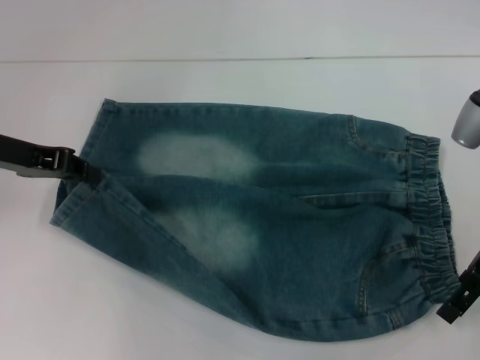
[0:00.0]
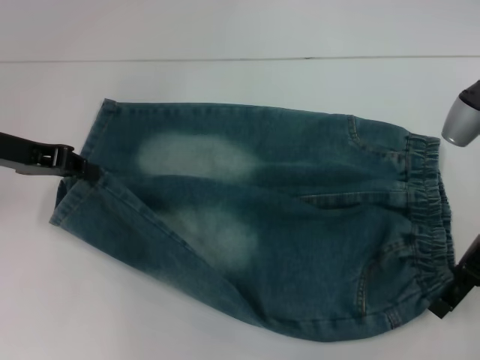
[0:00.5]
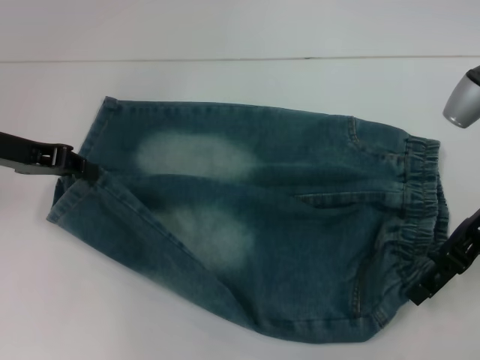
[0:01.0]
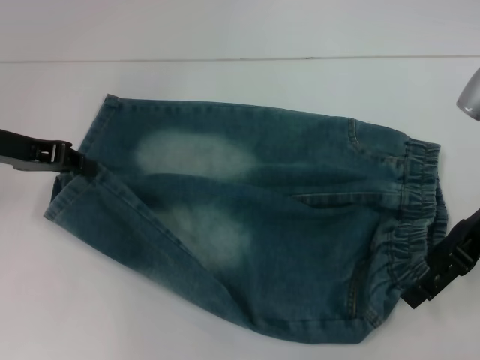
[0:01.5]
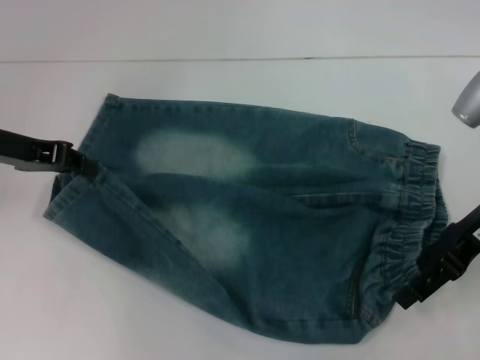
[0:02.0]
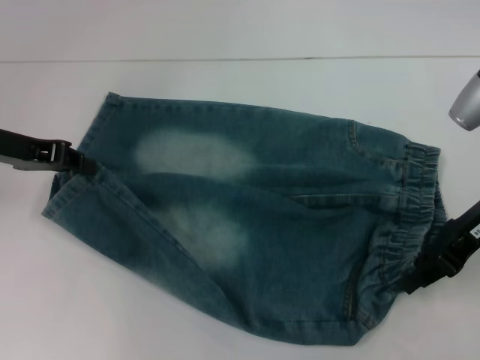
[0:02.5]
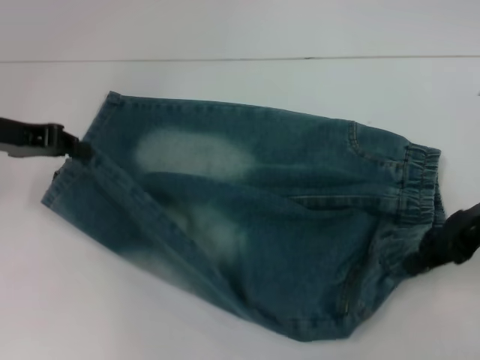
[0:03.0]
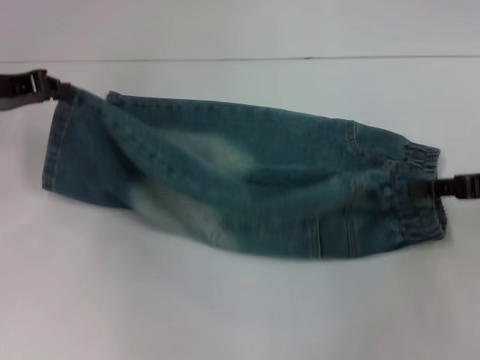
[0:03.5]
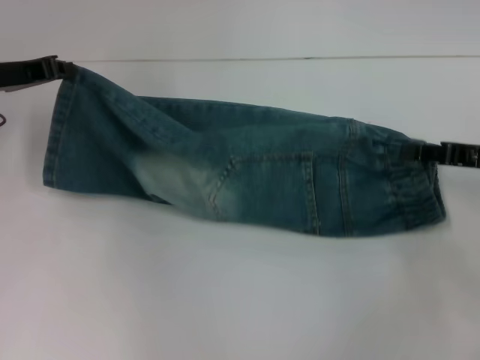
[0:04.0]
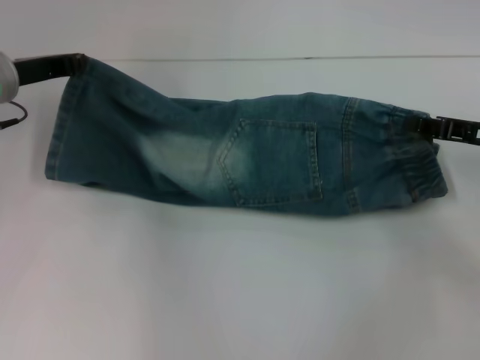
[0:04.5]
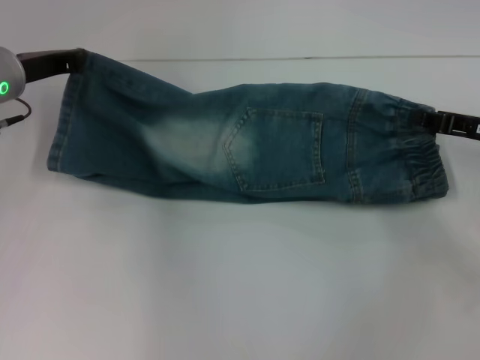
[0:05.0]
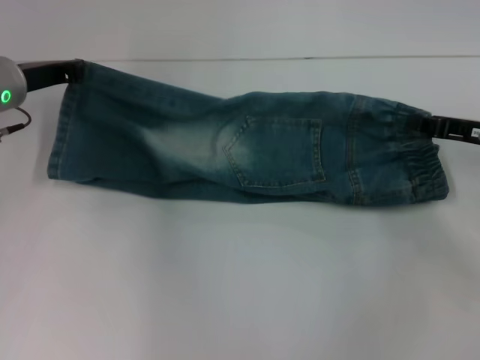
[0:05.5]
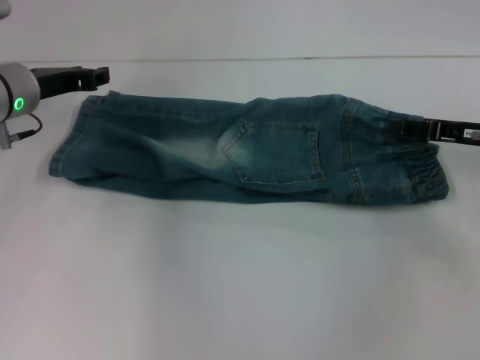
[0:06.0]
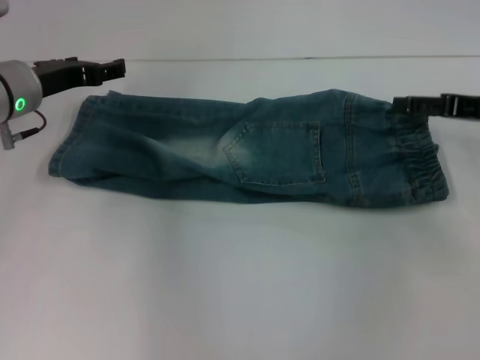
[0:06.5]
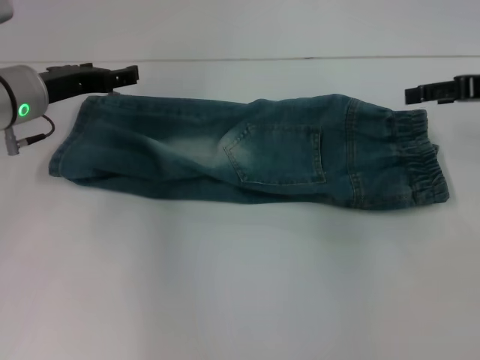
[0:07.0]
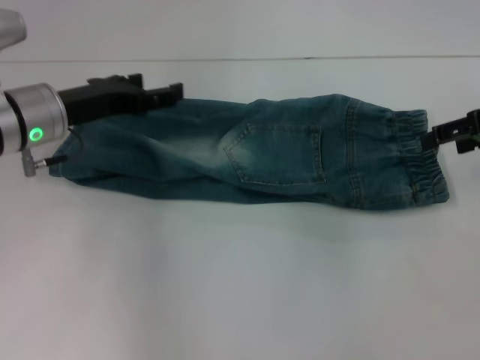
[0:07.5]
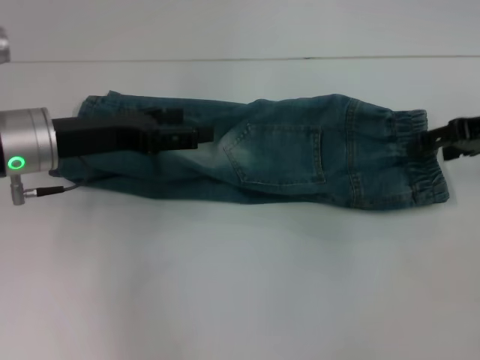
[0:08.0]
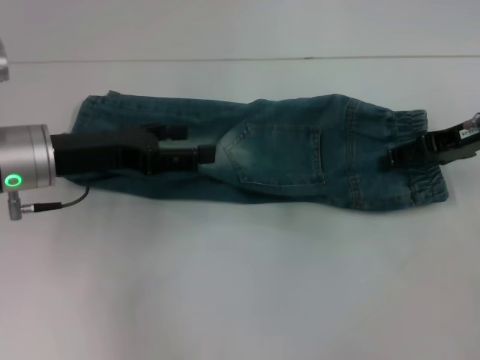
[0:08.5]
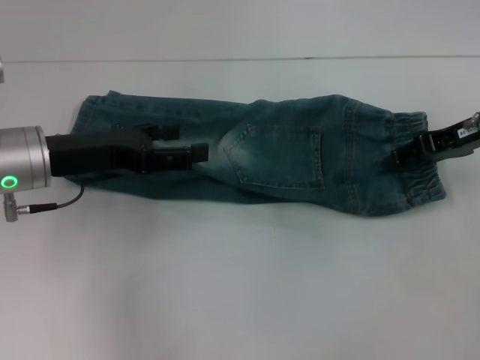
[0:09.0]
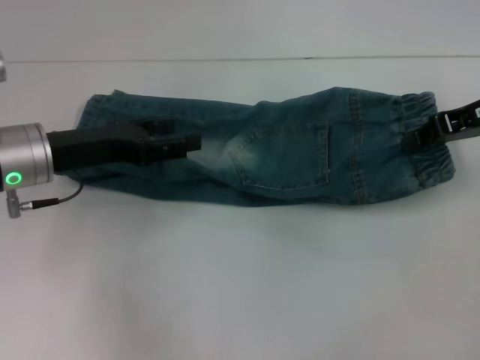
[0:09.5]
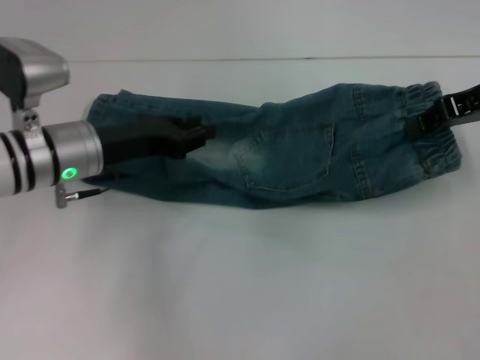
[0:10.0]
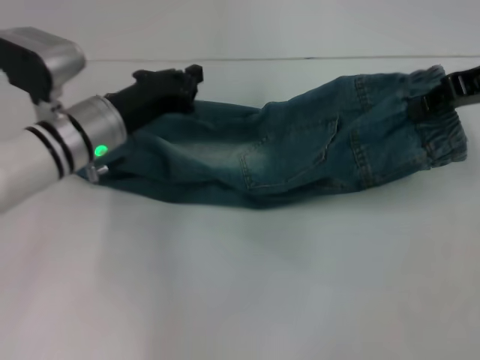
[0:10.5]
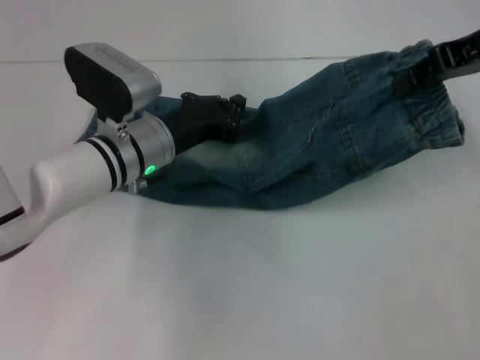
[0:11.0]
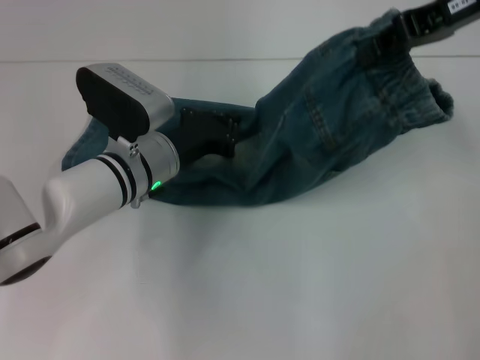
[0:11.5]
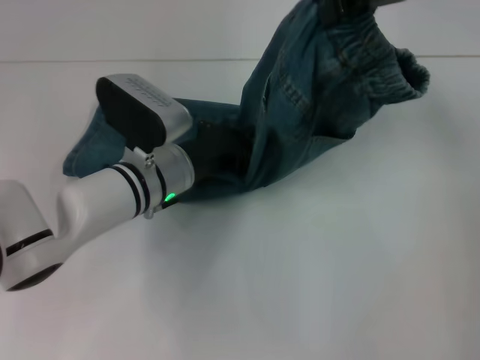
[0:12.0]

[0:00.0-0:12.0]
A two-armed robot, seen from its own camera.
Step, 0:00.0 to 0:02.5: Hold the lower right waistband with your right hand.
Step, 0:03.0 to 0:05.5: Fold upward with your left hand.
Step, 0:06.0 to 0:06.5: Fold upward with your right hand.
Step, 0:07.0 to 0:09.0: Grab the waistband with your right hand.
0:00.0 to 0:02.0: The grippers stay close to where they were, moving slightly.
0:02.0 to 0:04.0: The right gripper moves to the right, some 5 cm, and closes its fingers.
0:04.0 to 0:06.0: The left gripper moves some 5 cm.
0:06.0 to 0:08.0: The left gripper heads backward, covering some 5 cm, and opens its fingers, while the right gripper is displaced upward by approximately 5 cm, and opens.
0:08.0 to 0:10.0: The left gripper closes. Meanwhile the right gripper ends up some 5 cm from where it was, and closes up.
0:10.0 to 0:12.0: The left gripper is displaced to the right and downward by about 10 cm, and closes its fingers. Meanwhile the right gripper travels upward and to the left by approximately 15 cm.

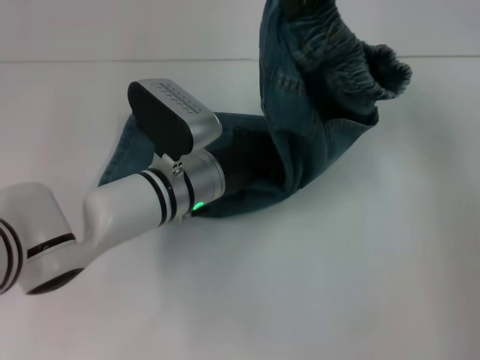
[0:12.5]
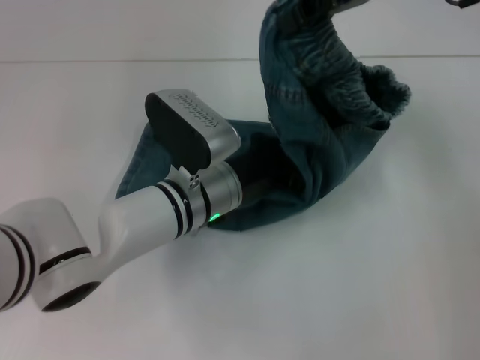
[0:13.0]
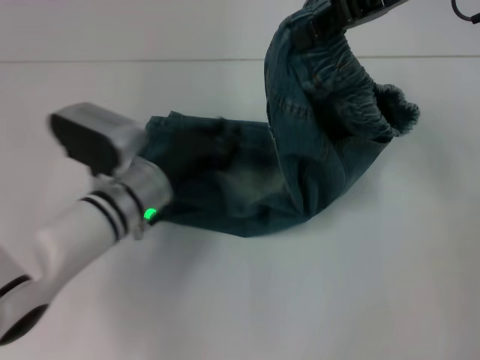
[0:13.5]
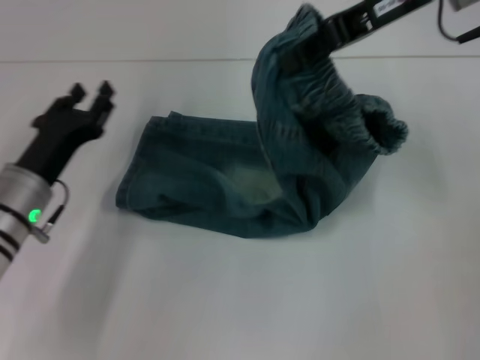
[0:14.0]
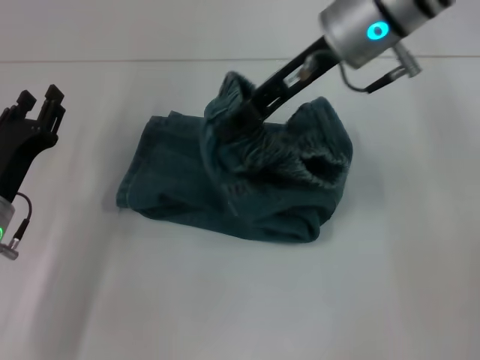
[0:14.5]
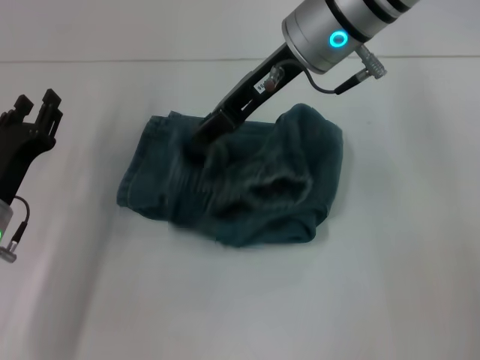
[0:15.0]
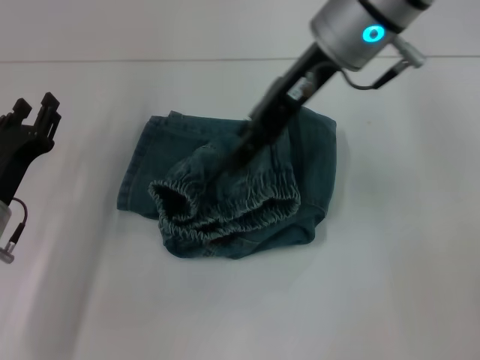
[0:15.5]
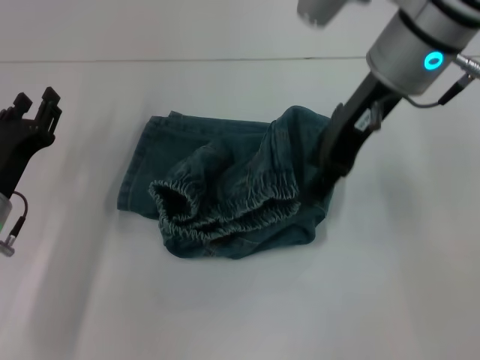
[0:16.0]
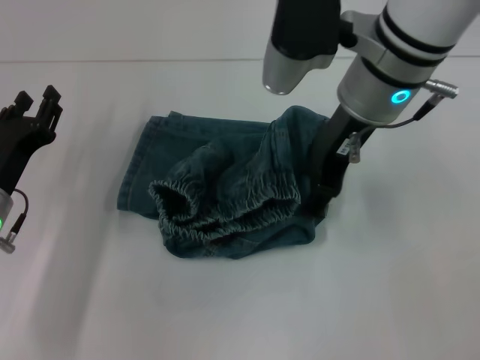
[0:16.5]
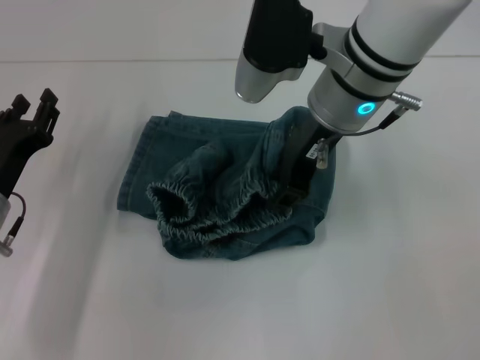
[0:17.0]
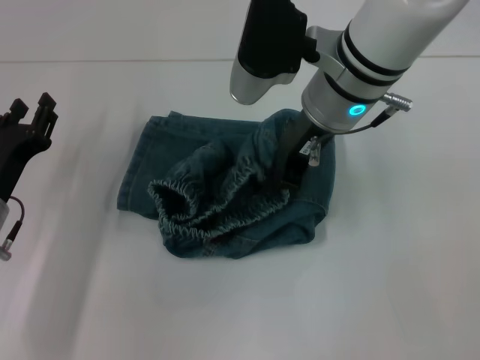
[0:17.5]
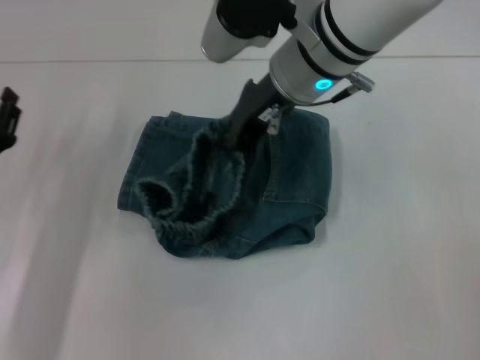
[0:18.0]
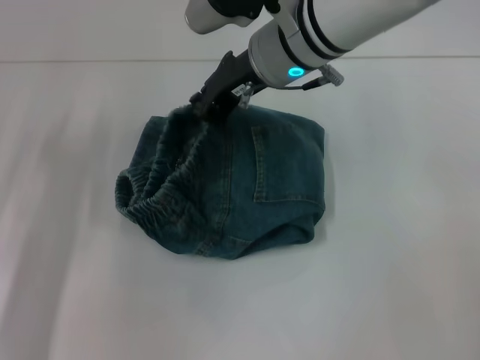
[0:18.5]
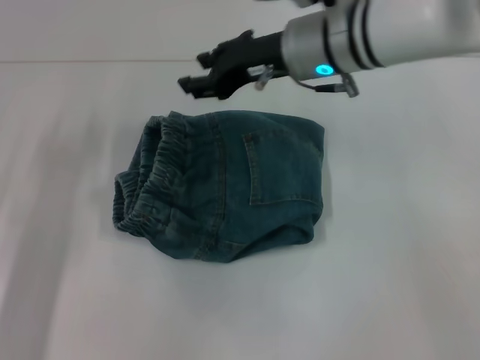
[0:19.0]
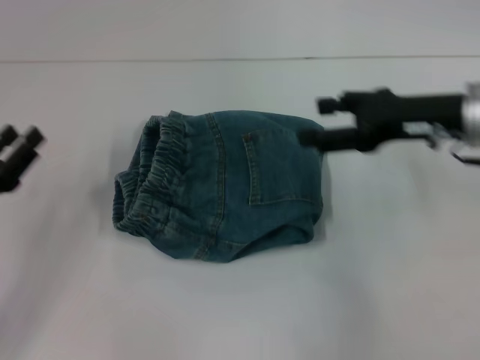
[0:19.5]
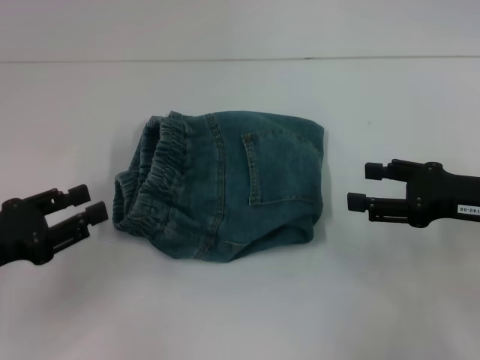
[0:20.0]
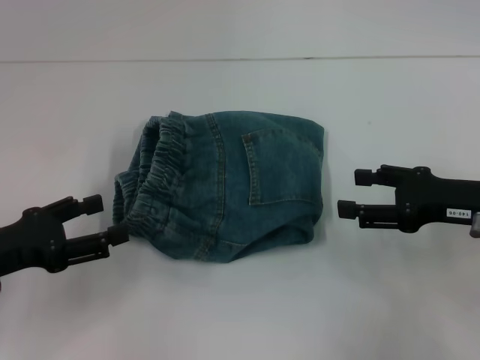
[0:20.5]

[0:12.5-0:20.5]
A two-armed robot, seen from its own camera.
Step, 0:13.5 to 0:15.0: Fold to the left with your right hand.
Step, 0:15.5 to 0:18.5: Adjust the pants with your right hand.
0:12.5 to 0:14.5: The right gripper shifts approximately 10 cm downward and to the left. Meanwhile the left gripper heads to the left, covering approximately 20 cm, and opens its fingers.
0:14.5 to 0:16.5: The right gripper opens up.
0:16.5 to 0:18.5: The right gripper moves to the left, roughly 5 cm, and closes up.
0:18.5 to 0:20.5: The left gripper shifts by roughly 5 cm, while the right gripper goes approximately 30 cm to the right, backward and downward, and opens its fingers.
